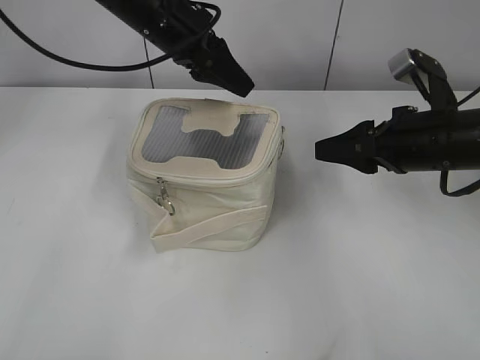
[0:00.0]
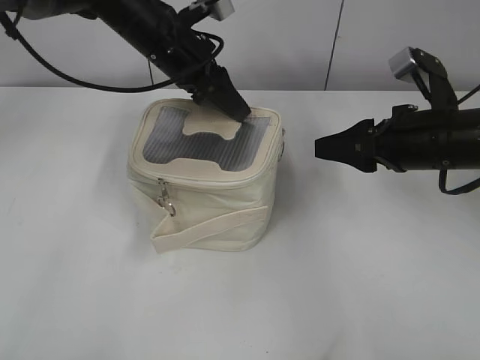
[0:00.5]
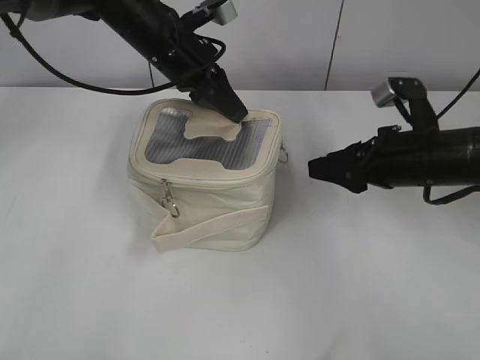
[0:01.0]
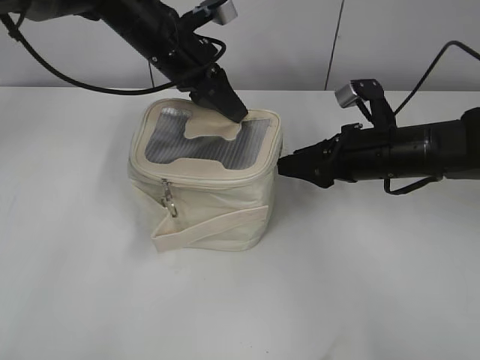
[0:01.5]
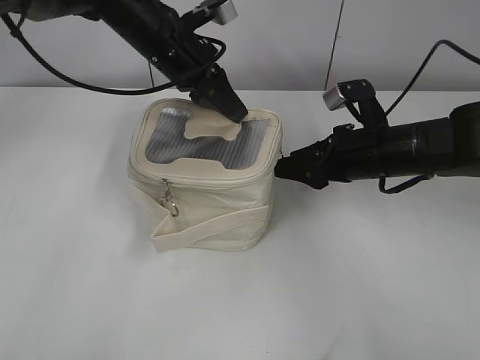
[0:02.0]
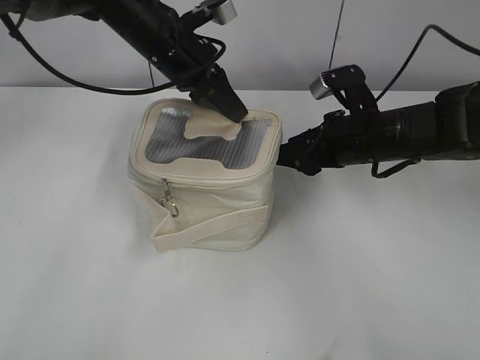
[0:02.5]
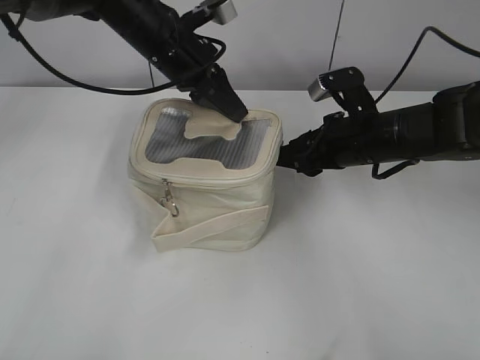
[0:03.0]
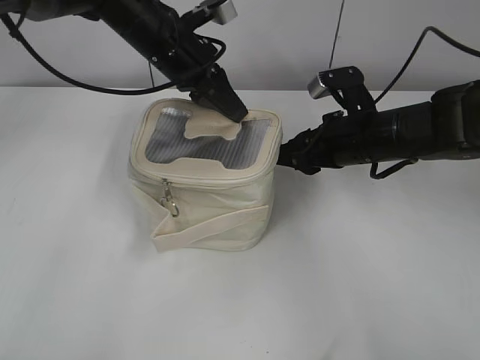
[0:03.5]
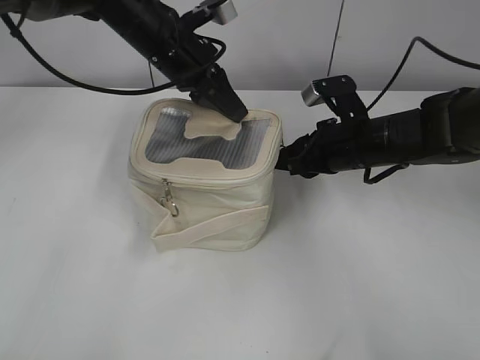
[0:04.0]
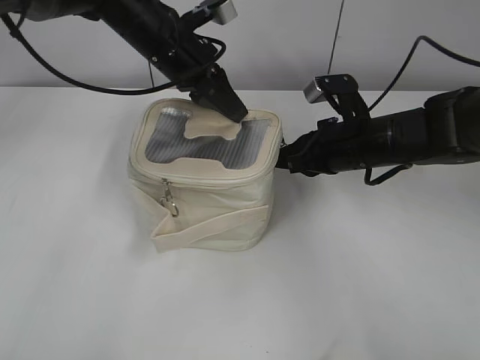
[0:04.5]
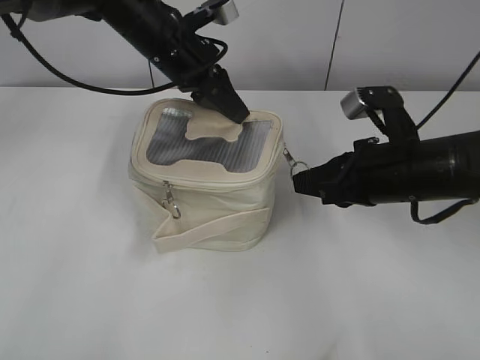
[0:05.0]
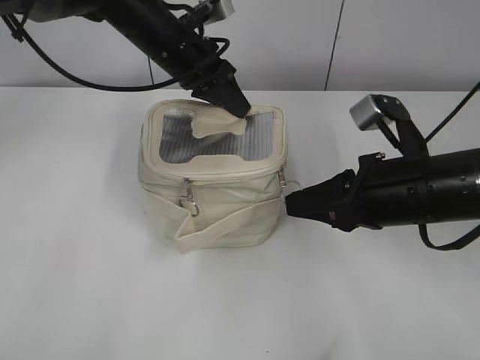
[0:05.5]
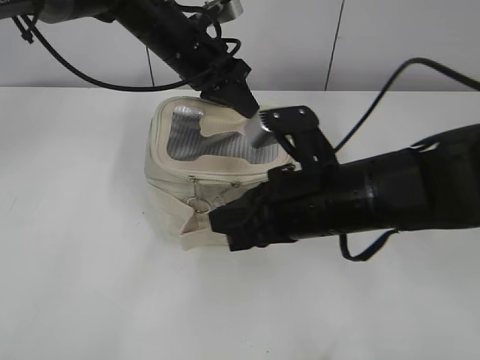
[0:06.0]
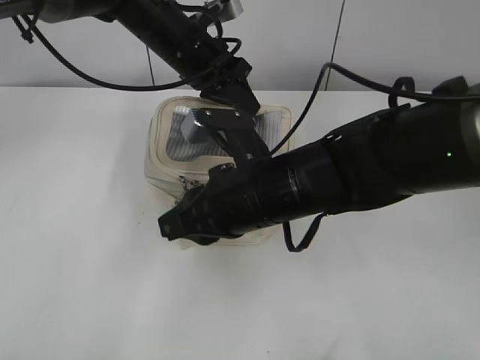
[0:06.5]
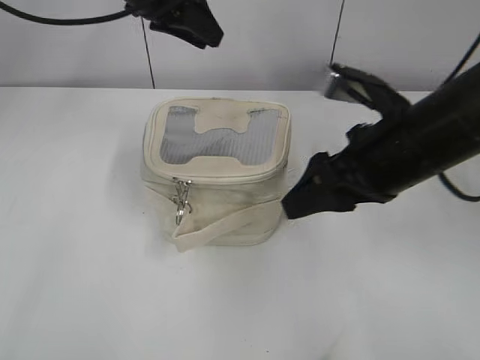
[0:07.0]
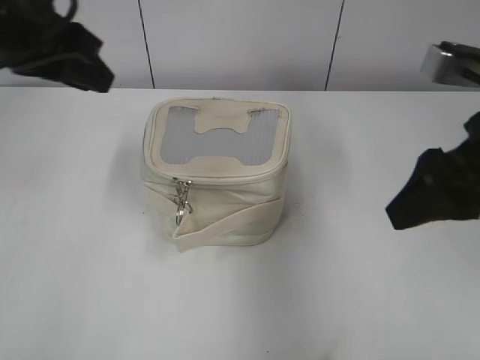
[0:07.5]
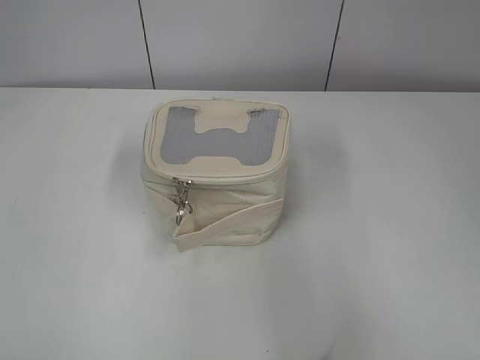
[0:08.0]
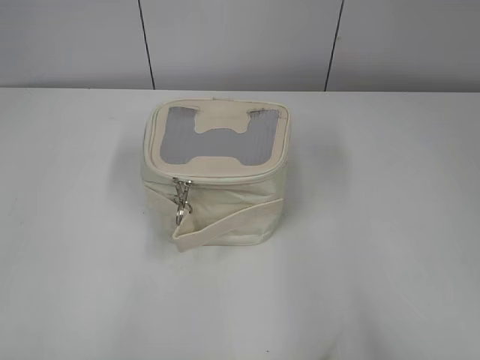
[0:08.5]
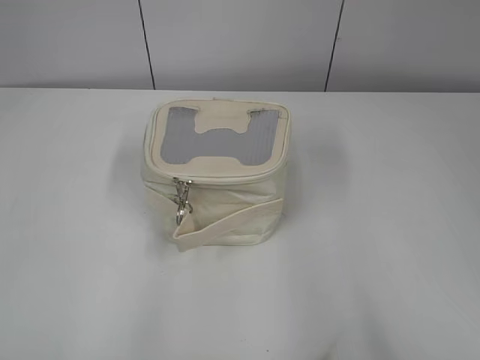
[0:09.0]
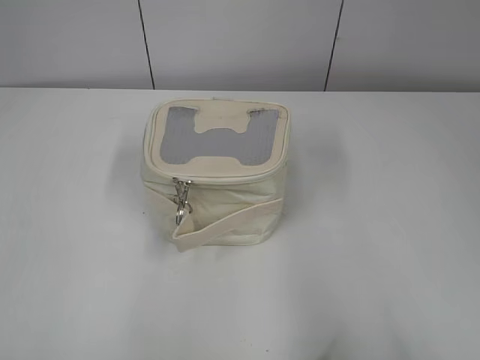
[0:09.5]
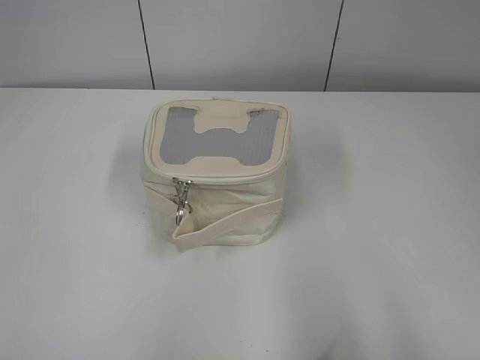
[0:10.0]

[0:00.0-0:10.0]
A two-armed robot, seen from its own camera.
Step, 0:00.0 to 0:06.5: Zip up the bag with your right hand.
0:00.0 to 0:02.0: The right gripper moves downward, approximately 5 cm. Meanwhile the left gripper closes.
0:02.0 to 0:04.0: The grippers move only a little.
0:04.0 to 0:06.0: The right gripper travels backward and to the left by roughly 15 cm, and closes up.
0:06.0 to 0:08.0: The left gripper heads backward and to the left, covering roughly 50 cm, and opens; the right gripper is displaced to the right, backward and upward by some 25 cm, and opens.
0:08.0 to 0:10.0: The left gripper is displaced downward by roughly 5 cm. The right gripper travels backward by roughly 10 cm.

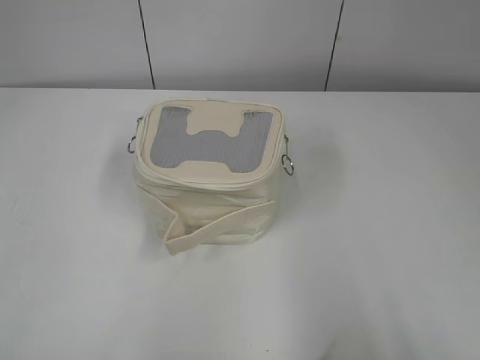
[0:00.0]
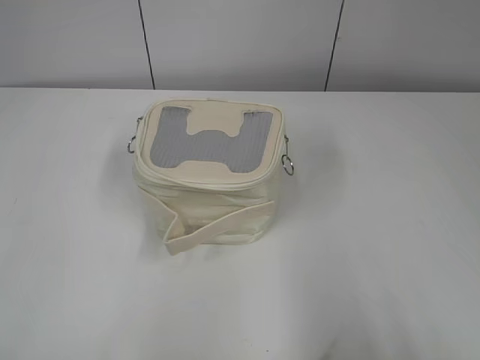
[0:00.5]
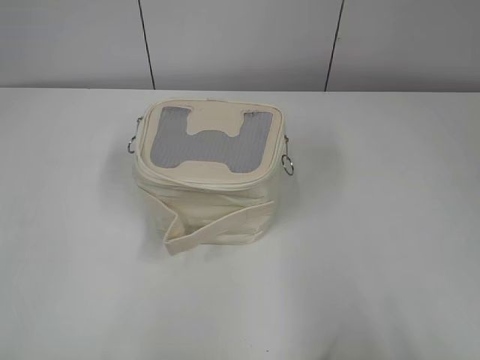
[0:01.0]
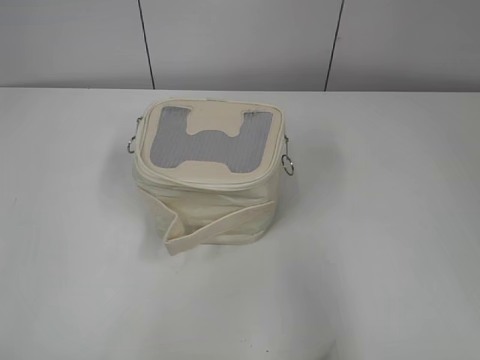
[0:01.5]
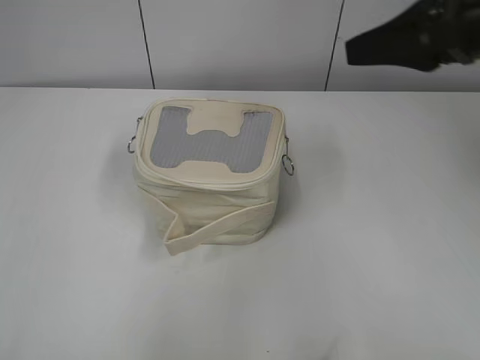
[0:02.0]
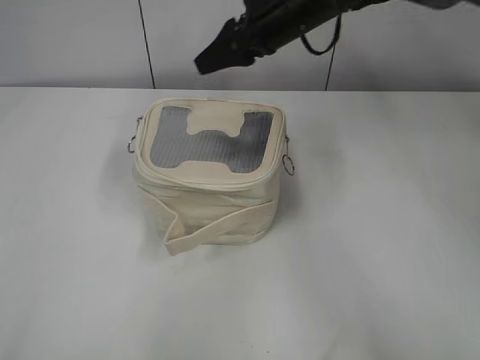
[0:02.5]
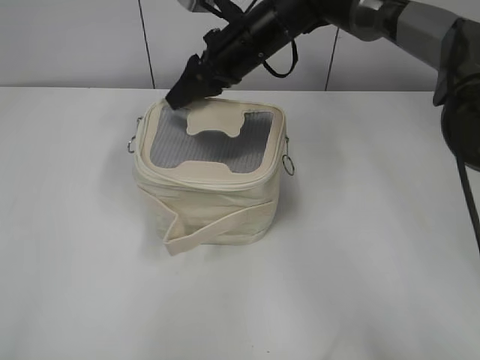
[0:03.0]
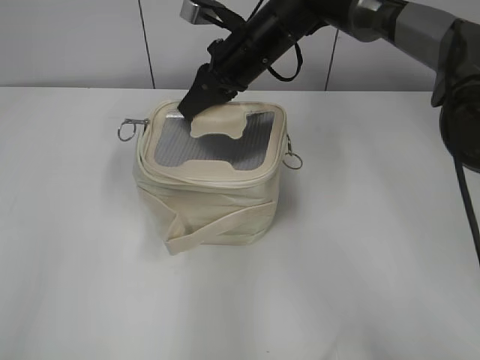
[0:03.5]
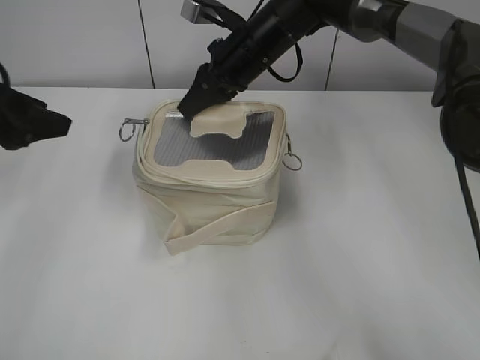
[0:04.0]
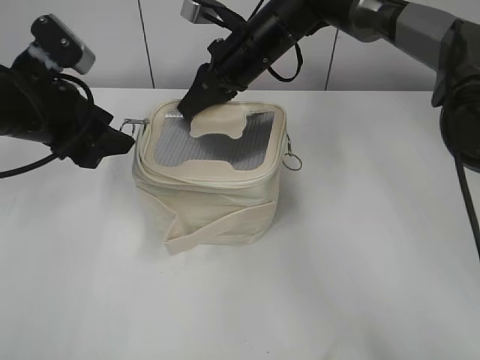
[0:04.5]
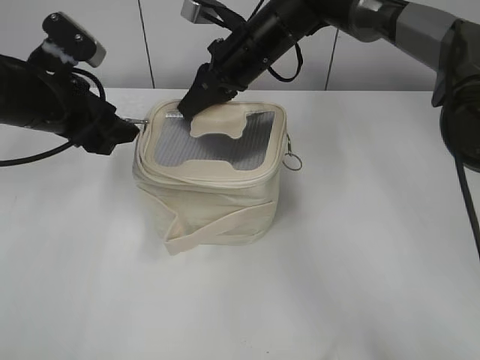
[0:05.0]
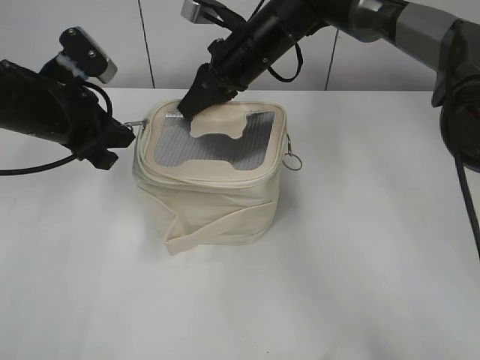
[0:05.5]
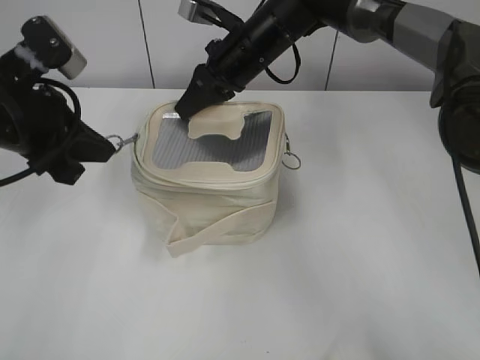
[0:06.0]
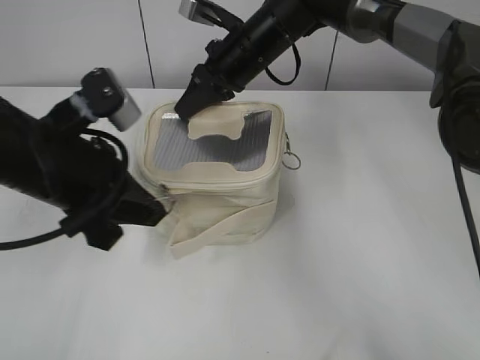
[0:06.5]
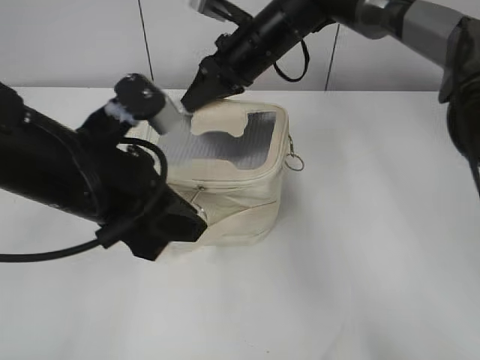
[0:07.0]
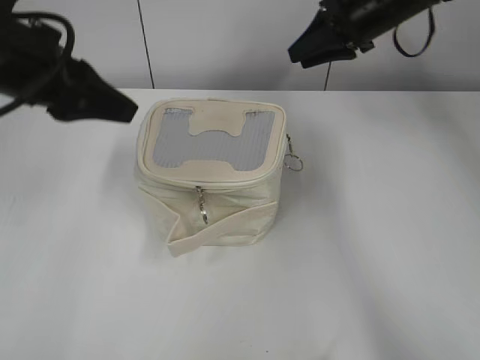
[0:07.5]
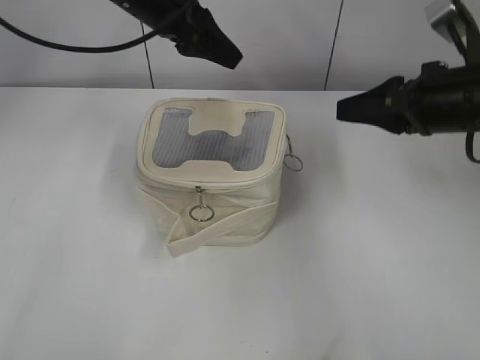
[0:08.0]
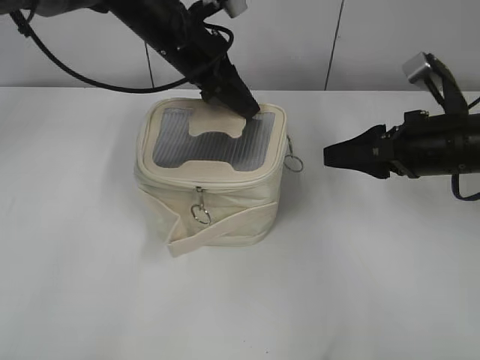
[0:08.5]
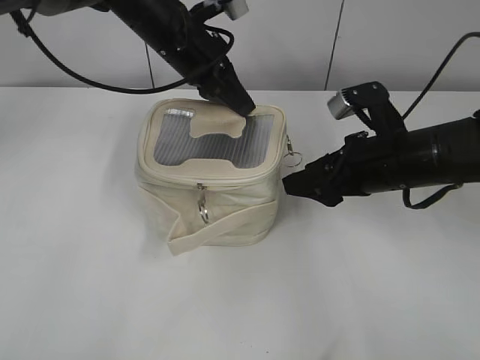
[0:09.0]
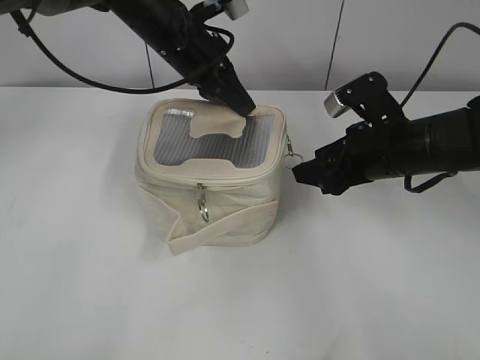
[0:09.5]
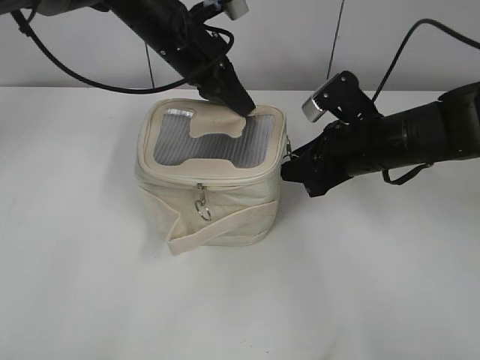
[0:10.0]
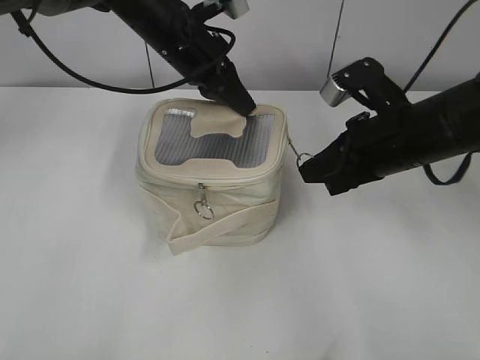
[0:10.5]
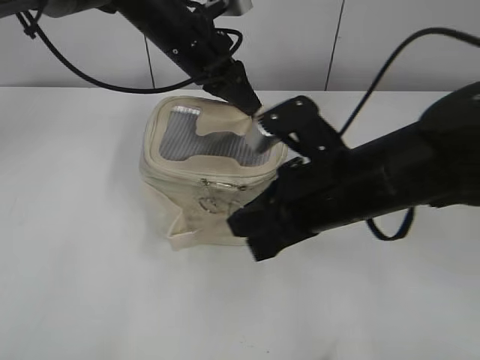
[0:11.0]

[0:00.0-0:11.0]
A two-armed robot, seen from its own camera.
Step, 0:00.0 to 0:07.0: Hold the bag with your right hand.
0:02.0 to 0:03.5: The right gripper moves to the left, forward and downward, some 30 cm, and closes up; the left gripper travels forward by approximately 10 cm.
0:03.5 to 0:05.5: The left gripper goes approximately 30 cm forward and downward, and closes.
0:05.5 to 0:07.5: The left gripper moves upward and backward, about 10 cm, and opens up. The right gripper travels to the right by approximately 15 cm, and opens its fingers.
0:07.5 to 0:09.0: The left gripper heads forward and to the right, covering about 20 cm, and closes its fingers, while the right gripper travels backward and downward by some 20 cm.
0:09.0 to 0:11.0: The right gripper heads to the left and backward, covering roughly 10 cm, and closes.

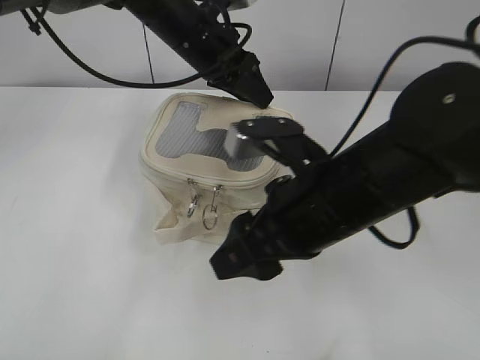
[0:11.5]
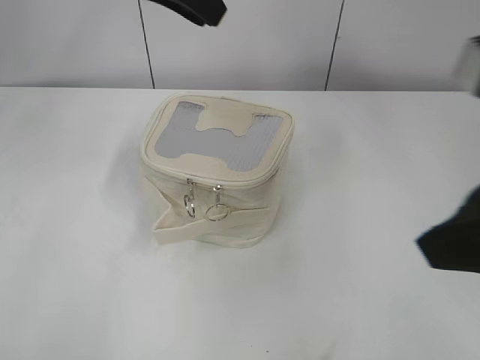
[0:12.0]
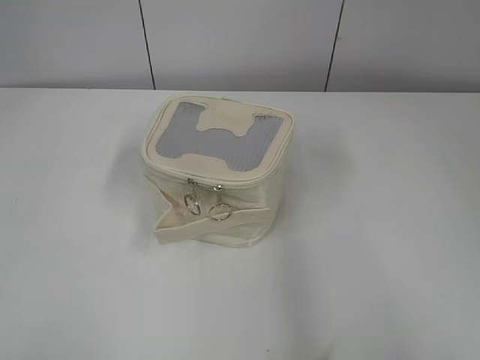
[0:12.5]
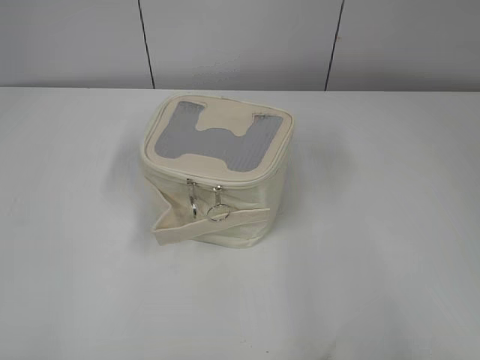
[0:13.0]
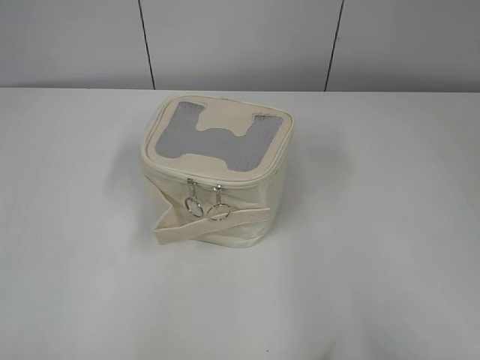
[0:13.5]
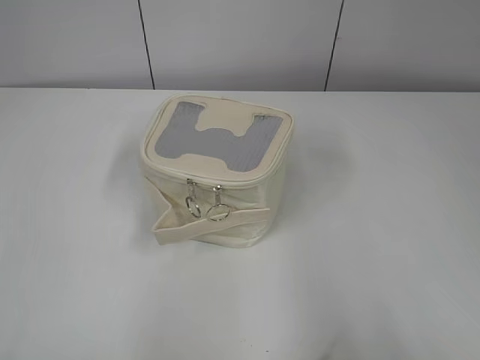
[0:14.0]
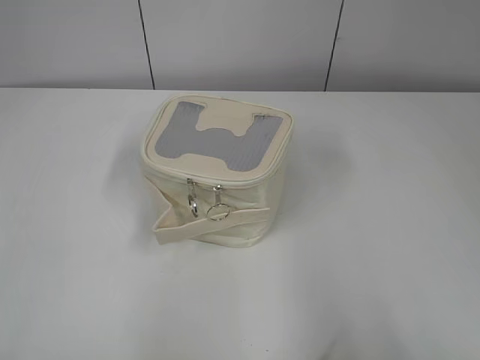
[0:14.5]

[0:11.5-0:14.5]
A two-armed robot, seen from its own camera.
0:11.5 to 0:13.0: The right gripper heads to the right, backward and upward, covering some 30 cm, while the left gripper goes roughly 50 cm backward and to the left.
